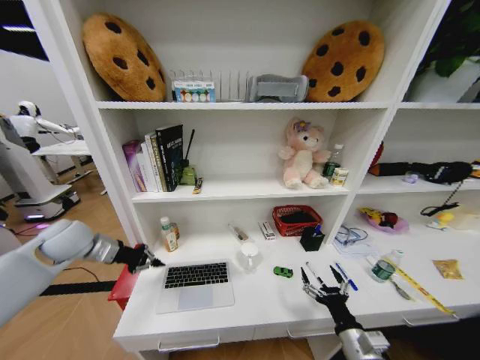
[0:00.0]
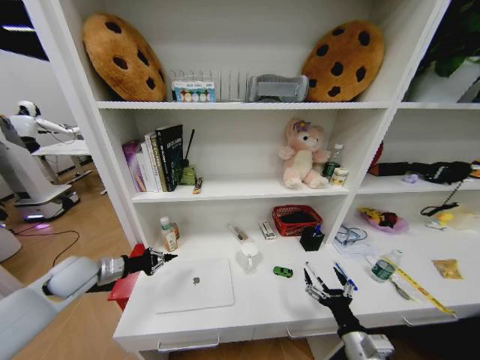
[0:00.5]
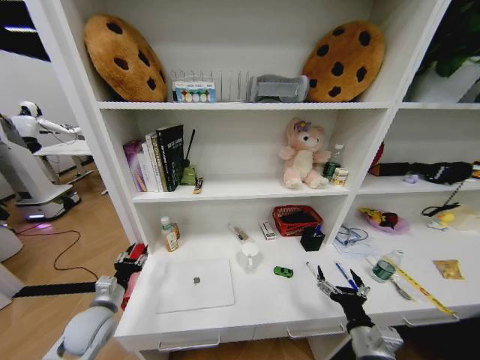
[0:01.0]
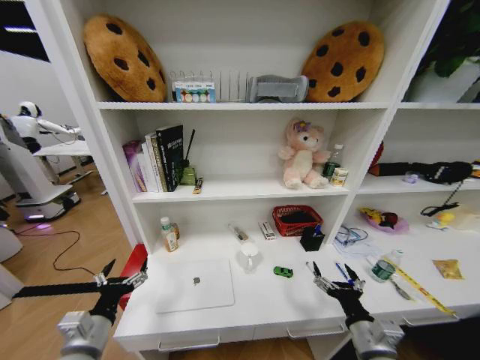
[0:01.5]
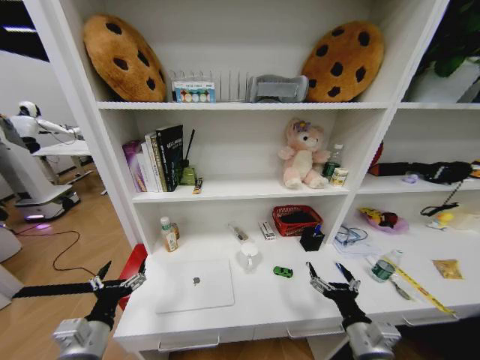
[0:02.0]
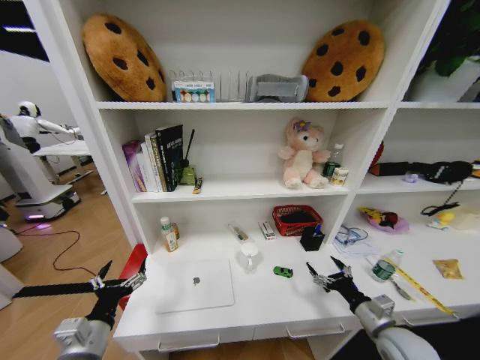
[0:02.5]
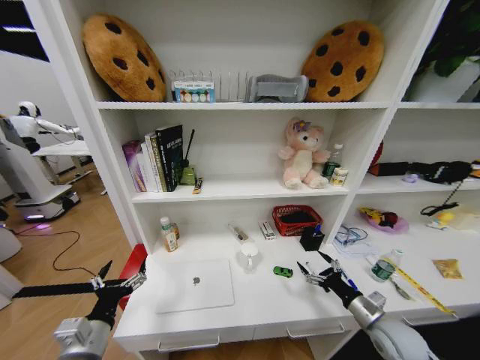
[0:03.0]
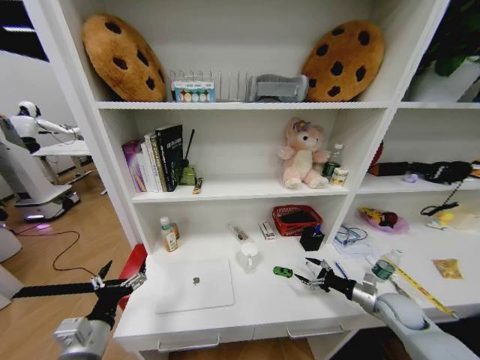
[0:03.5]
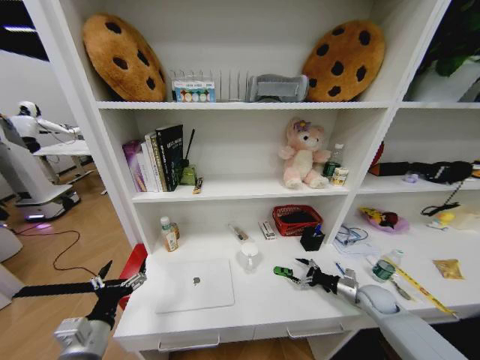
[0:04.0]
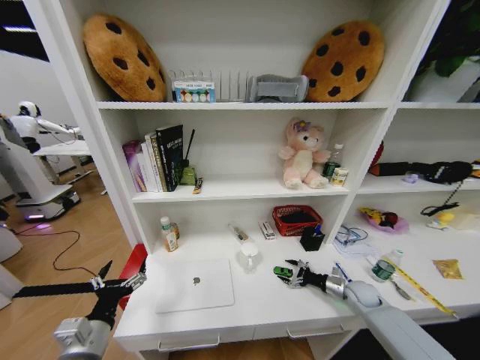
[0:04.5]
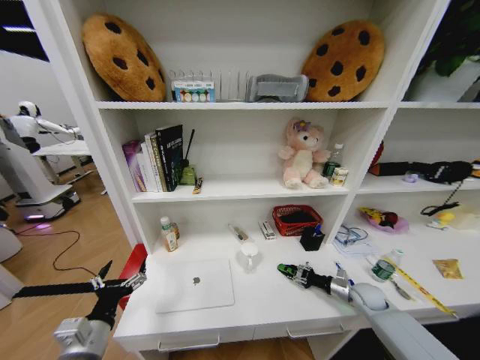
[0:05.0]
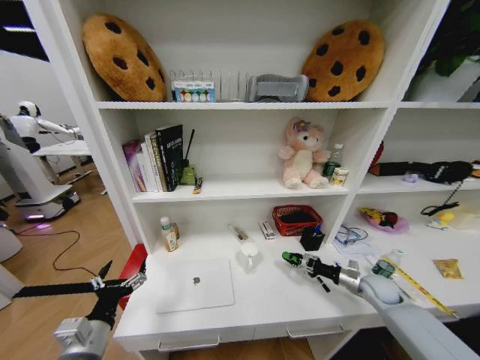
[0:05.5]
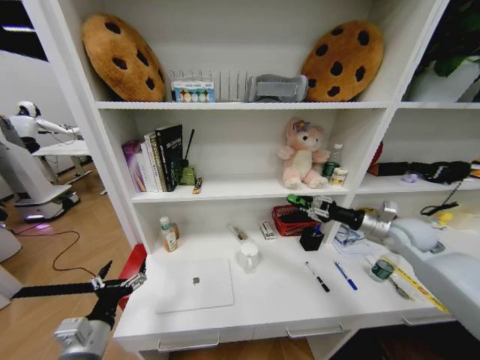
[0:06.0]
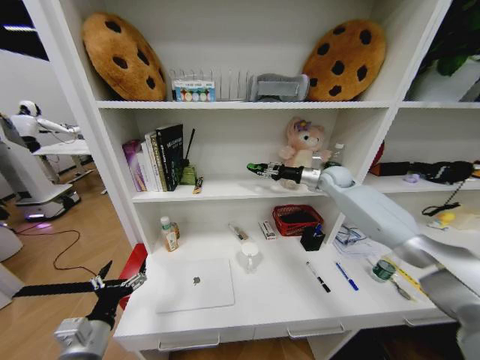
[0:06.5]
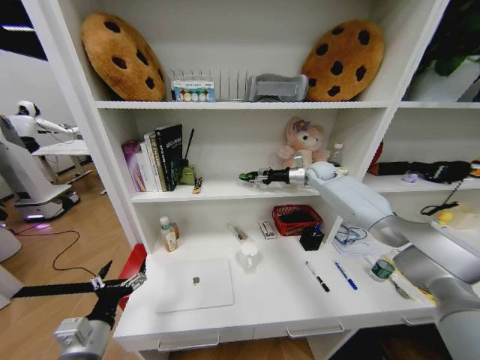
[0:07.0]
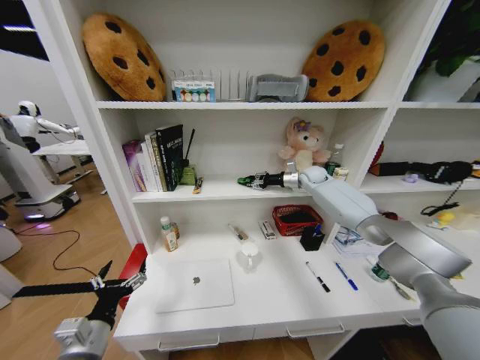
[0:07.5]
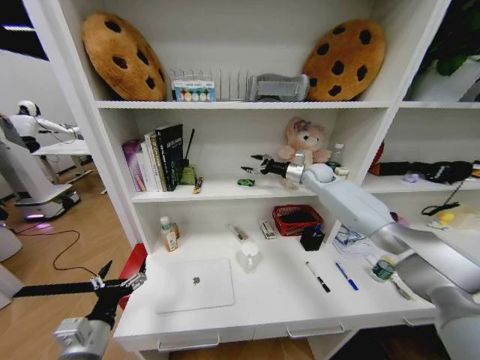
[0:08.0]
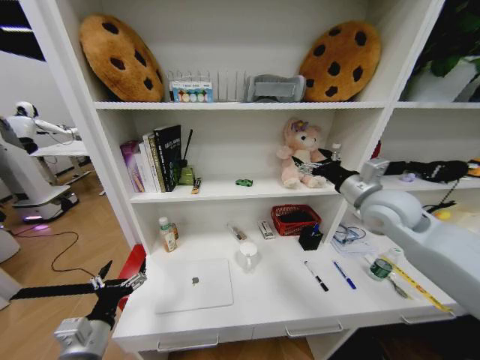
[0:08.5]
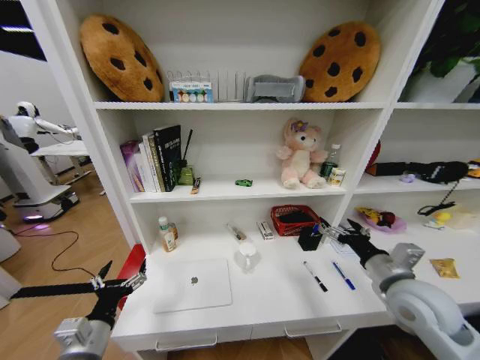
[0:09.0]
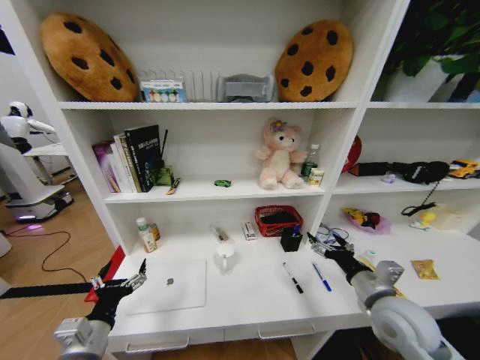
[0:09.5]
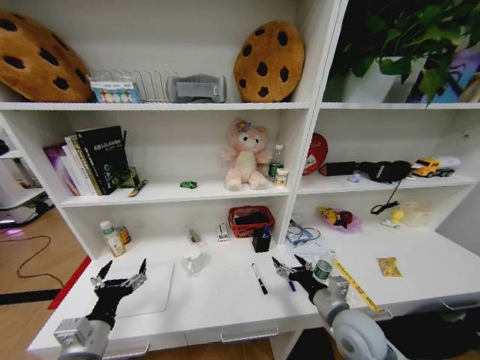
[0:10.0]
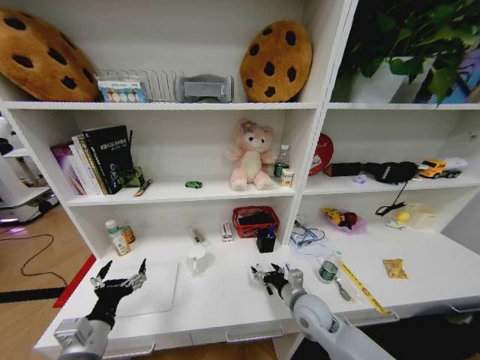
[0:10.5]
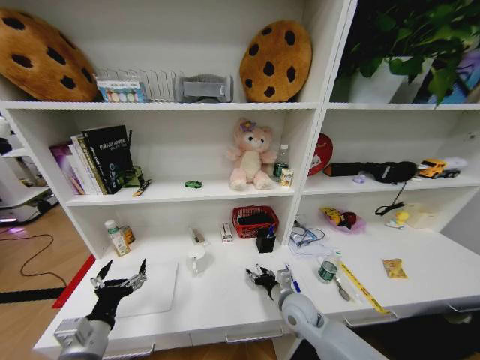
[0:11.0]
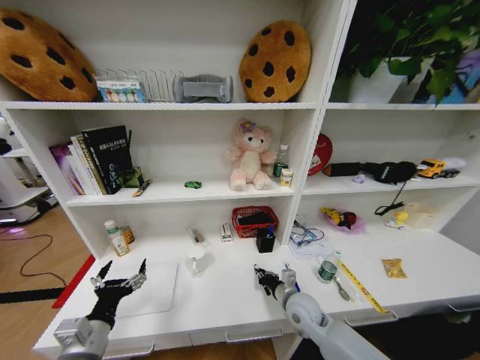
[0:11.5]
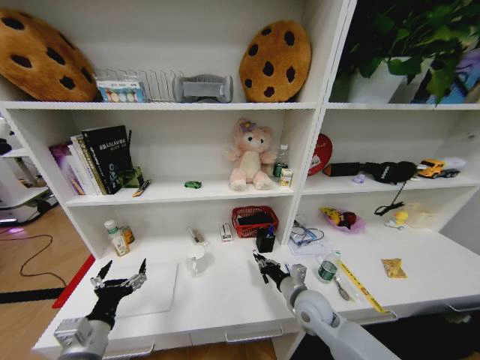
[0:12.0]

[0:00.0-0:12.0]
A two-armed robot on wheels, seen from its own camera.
Task of the whole recording: Organize the objects on the table.
0.0 to 2.0 s: The left gripper moves backward, downward and to the right, about 30 cm, and opens.
2.0 to 4.0 s: The right gripper moves forward, to the right and downward, roughly 30 cm.
4.0 to 6.0 s: The right gripper heads upward, covering some 25 cm, and closes up.
6.0 to 8.0 s: The right gripper is displaced forward and to the left by roughly 30 cm, and opens up.
8.0 to 10.0 s: The right gripper moves backward and downward, roughly 50 cm.
10.0 to 12.0 s: The right gripper travels forward, to the left and downward by roughly 10 cm, and closes its fingers.

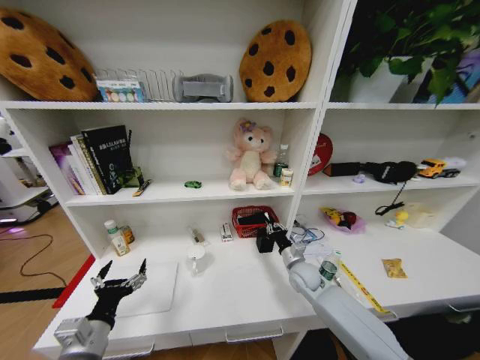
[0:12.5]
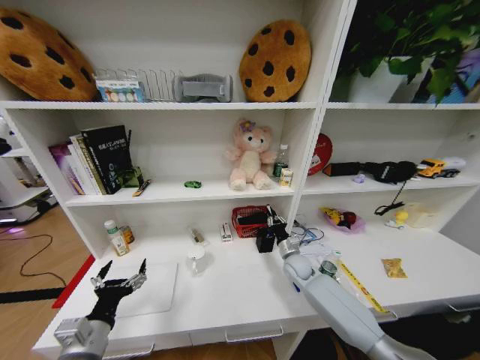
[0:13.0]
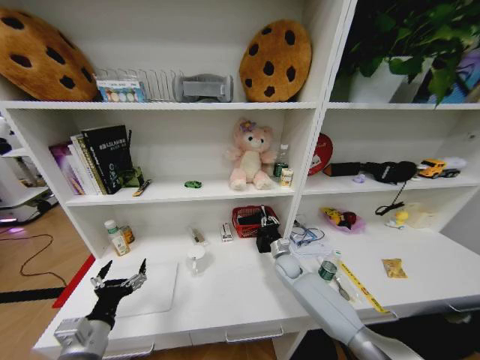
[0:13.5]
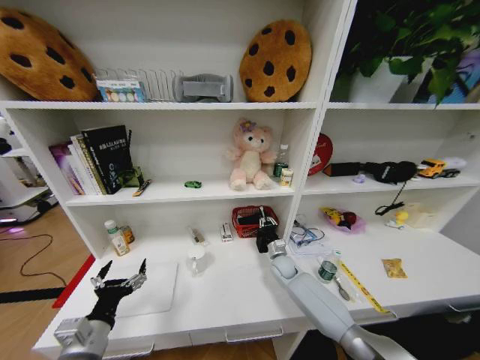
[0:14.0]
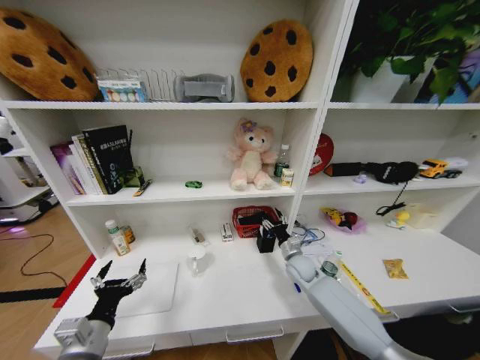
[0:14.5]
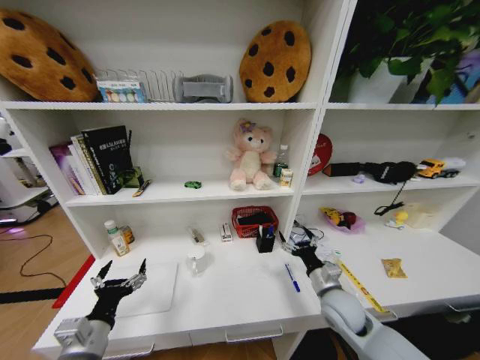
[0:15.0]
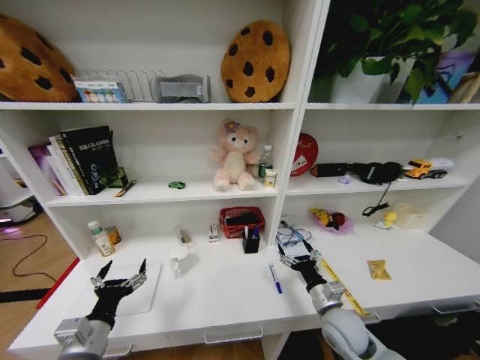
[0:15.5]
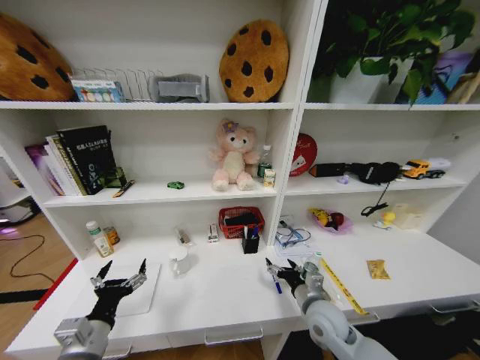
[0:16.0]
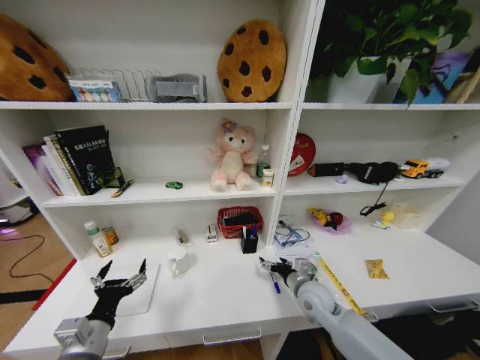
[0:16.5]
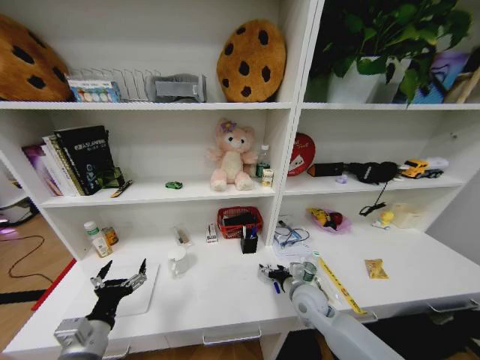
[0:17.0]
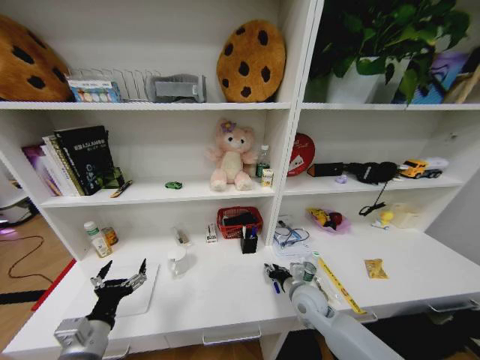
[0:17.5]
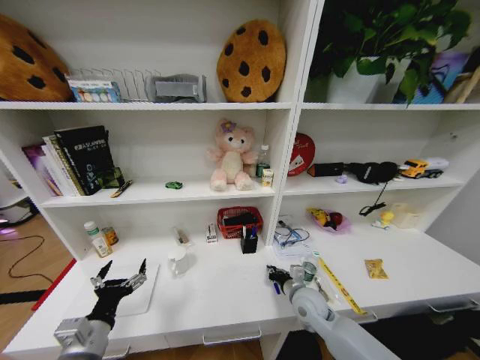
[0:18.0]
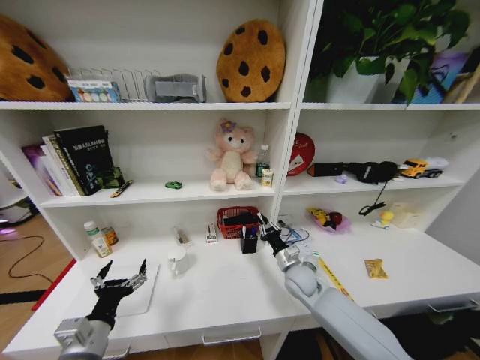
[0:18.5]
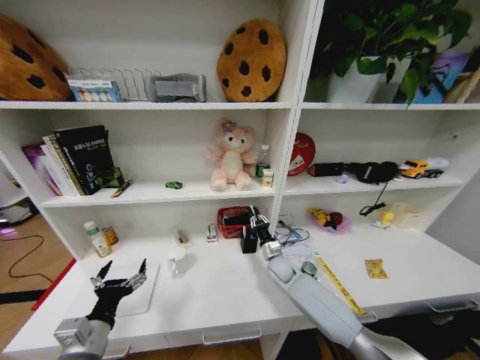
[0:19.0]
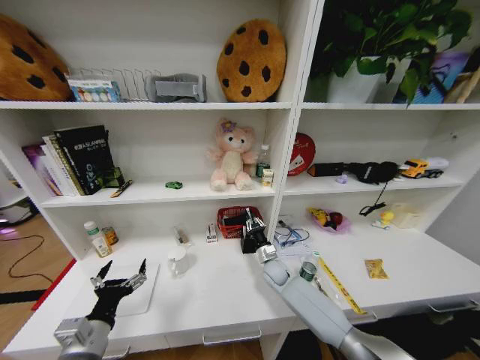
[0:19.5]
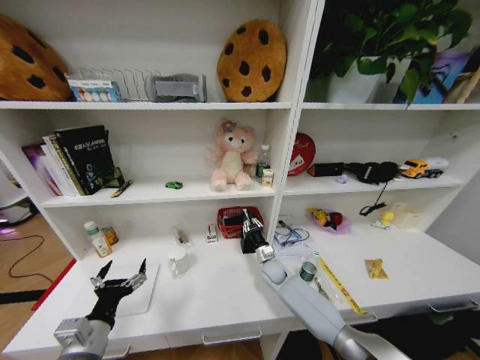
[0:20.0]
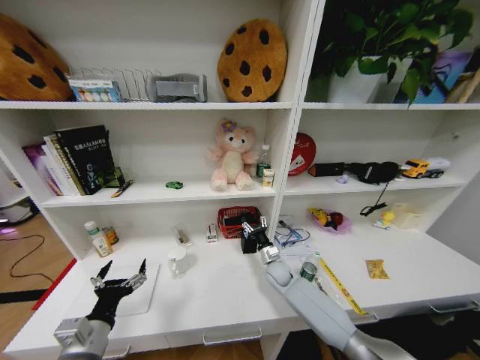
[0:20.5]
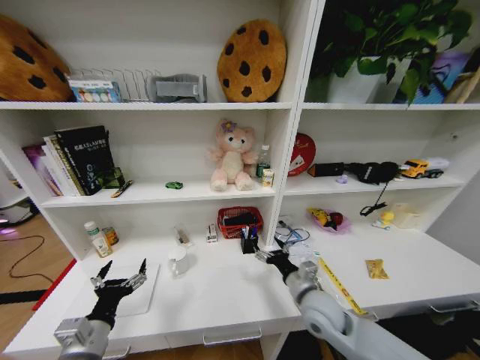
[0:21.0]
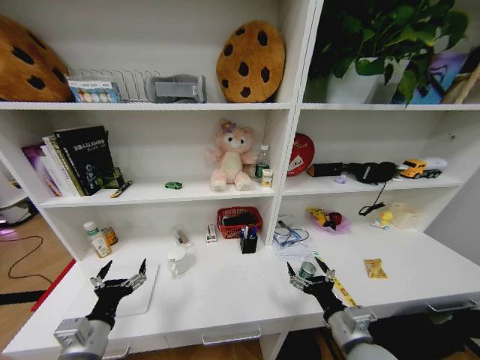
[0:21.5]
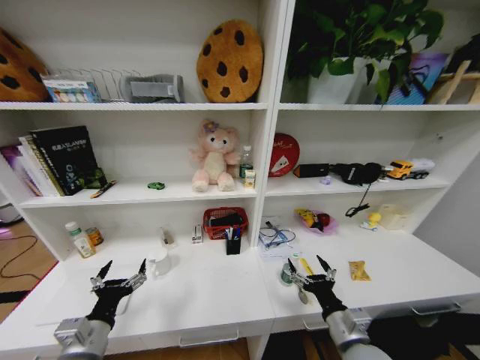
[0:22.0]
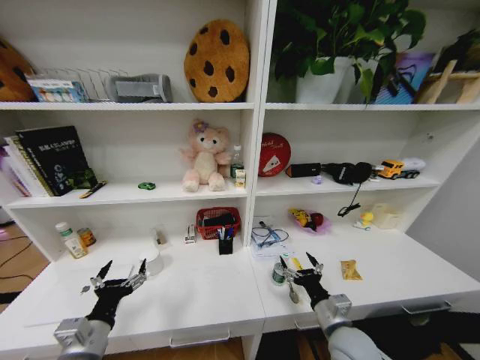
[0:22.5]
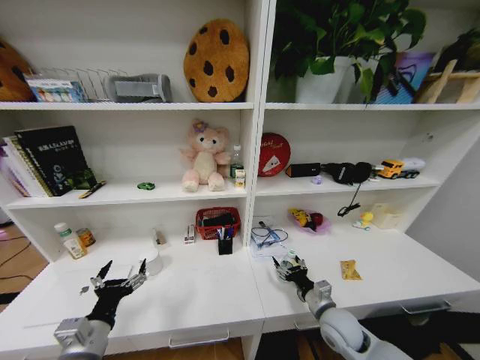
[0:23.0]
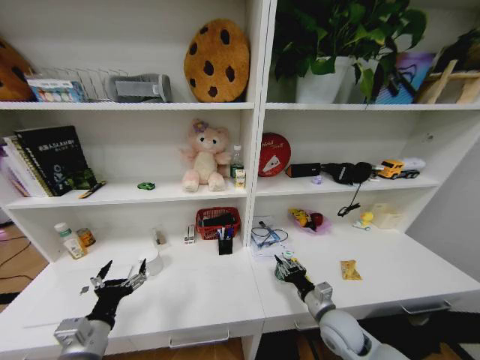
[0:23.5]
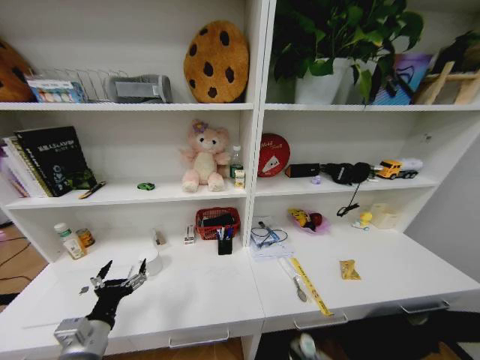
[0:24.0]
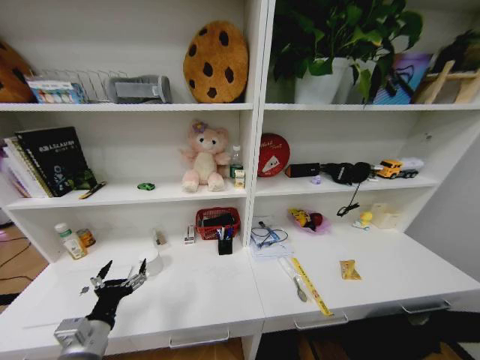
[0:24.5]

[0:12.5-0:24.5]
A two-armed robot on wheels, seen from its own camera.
Task of the whole recording: Organize the objects on the table.
12.5 to 14.5 s: The right gripper opens.
14.5 to 16.5 s: The right gripper heads backward, covering roughly 10 cm, and opens its fingers.
16.5 to 18.5 s: The right gripper travels forward by some 5 cm, and closes.
18.5 to 20.5 s: The right gripper heads downward and forward, covering roughly 10 cm, and opens up.
20.5 to 22.5 s: The right gripper travels backward and upward by some 25 cm.
22.5 to 24.5 s: The right gripper travels backward, to the right and downward by approximately 50 cm, and closes.

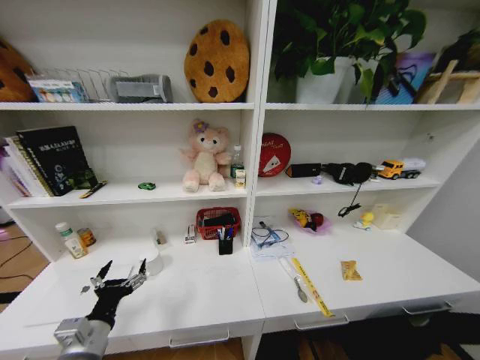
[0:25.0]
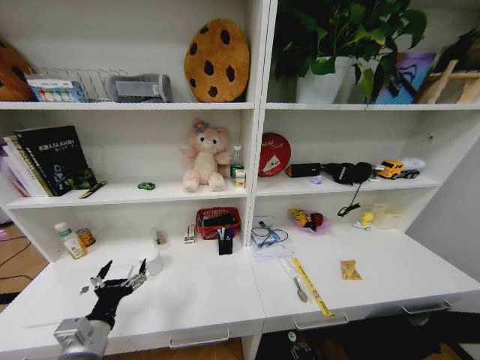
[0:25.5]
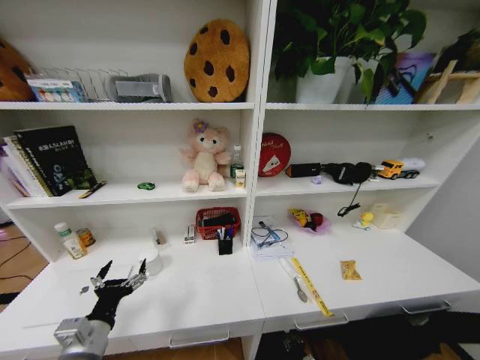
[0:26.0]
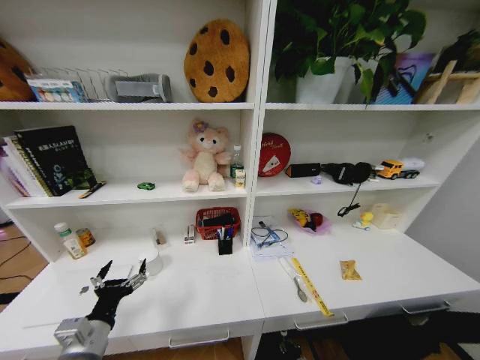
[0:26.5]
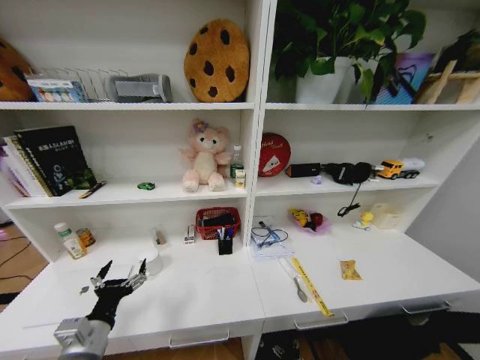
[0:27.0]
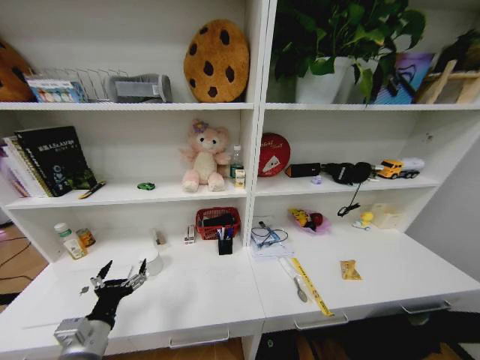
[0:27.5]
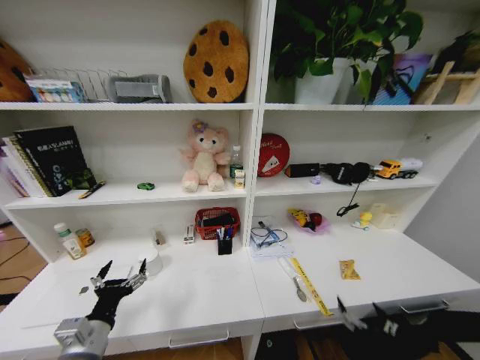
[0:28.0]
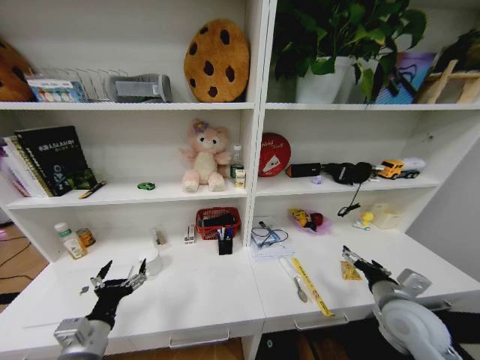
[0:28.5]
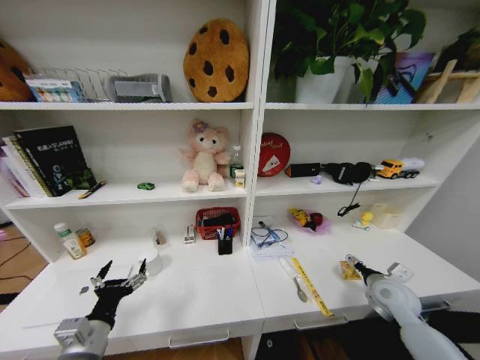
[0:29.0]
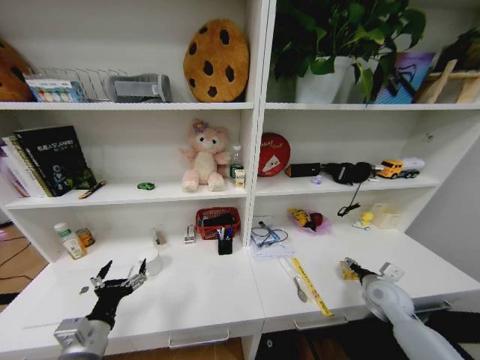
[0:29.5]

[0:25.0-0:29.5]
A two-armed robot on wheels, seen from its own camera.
Task of the whole recording: Organize the objects on the table.
27.0 to 29.5 s: The right gripper is displaced upward and forward by about 40 cm.
